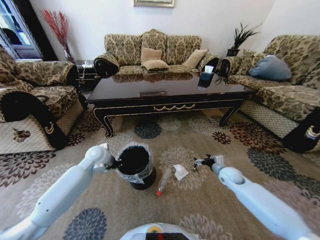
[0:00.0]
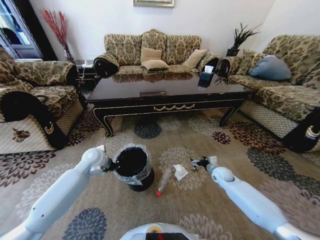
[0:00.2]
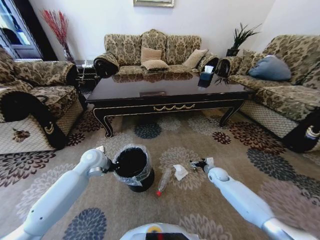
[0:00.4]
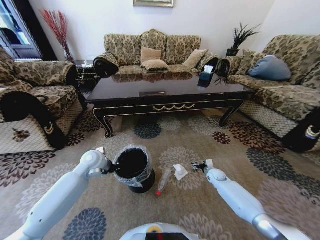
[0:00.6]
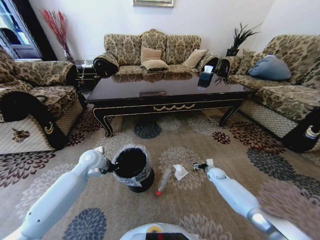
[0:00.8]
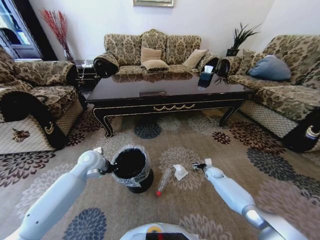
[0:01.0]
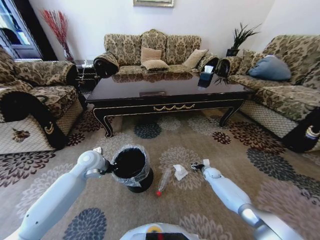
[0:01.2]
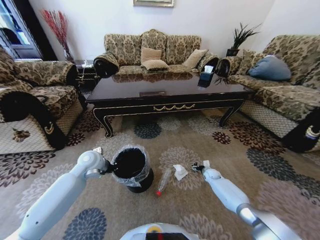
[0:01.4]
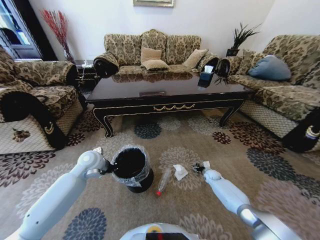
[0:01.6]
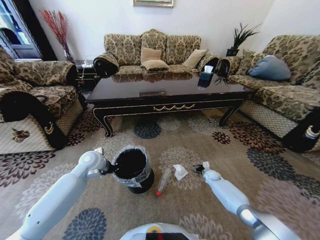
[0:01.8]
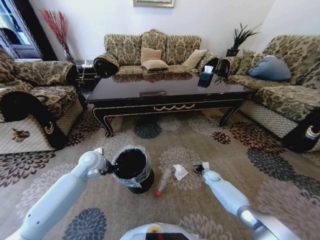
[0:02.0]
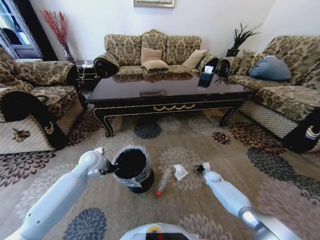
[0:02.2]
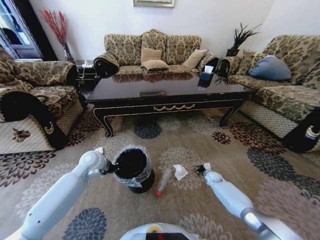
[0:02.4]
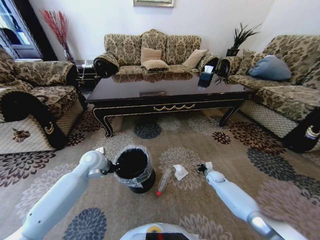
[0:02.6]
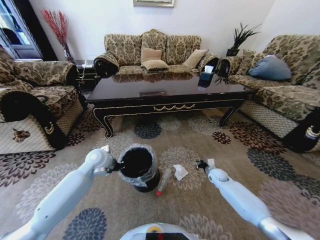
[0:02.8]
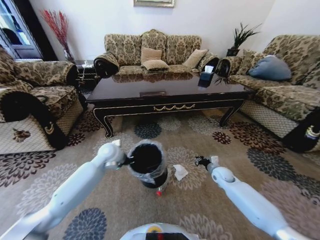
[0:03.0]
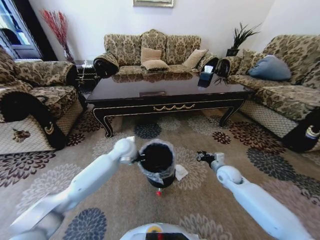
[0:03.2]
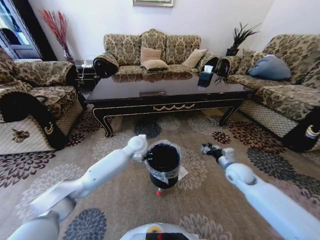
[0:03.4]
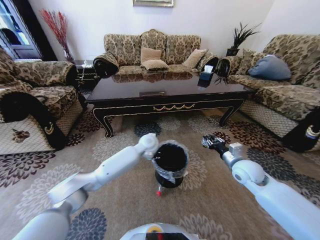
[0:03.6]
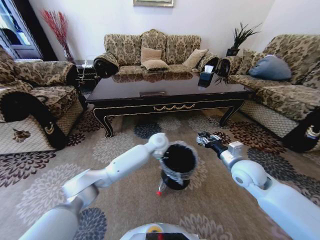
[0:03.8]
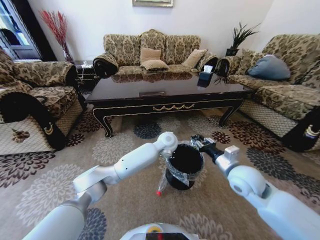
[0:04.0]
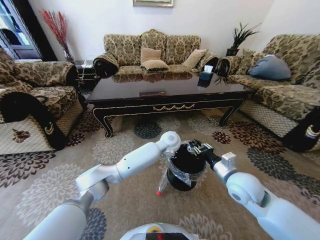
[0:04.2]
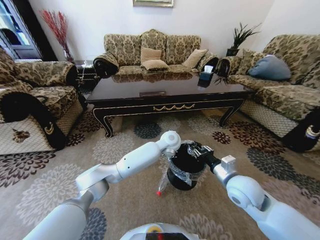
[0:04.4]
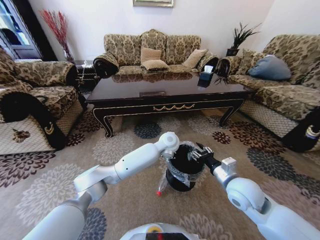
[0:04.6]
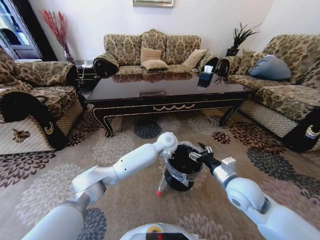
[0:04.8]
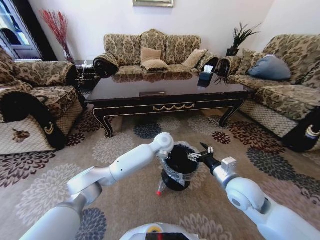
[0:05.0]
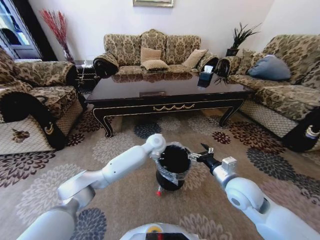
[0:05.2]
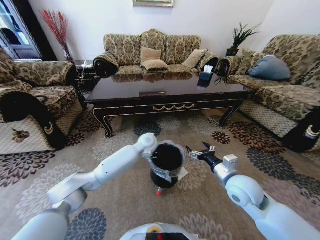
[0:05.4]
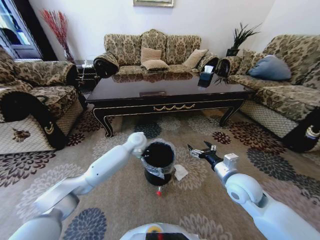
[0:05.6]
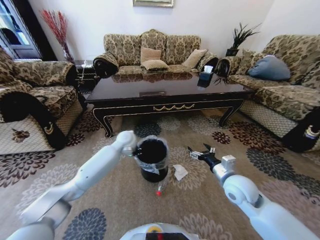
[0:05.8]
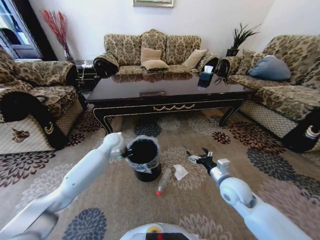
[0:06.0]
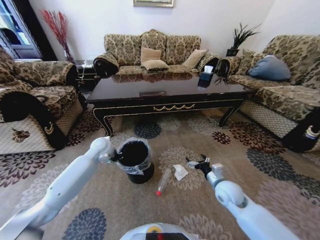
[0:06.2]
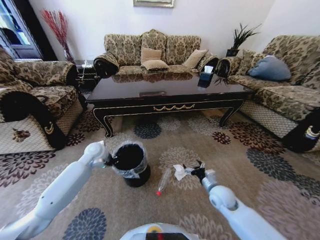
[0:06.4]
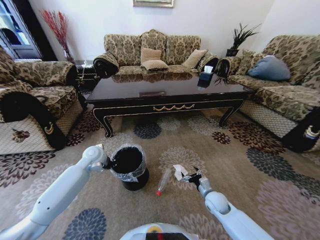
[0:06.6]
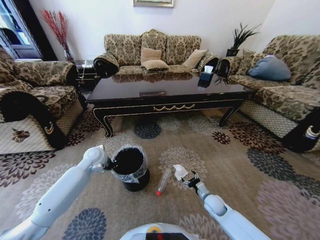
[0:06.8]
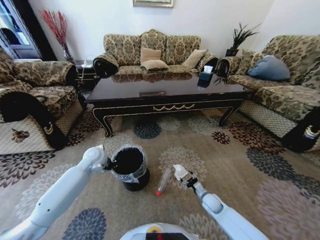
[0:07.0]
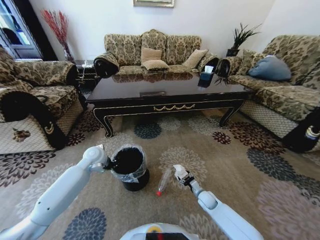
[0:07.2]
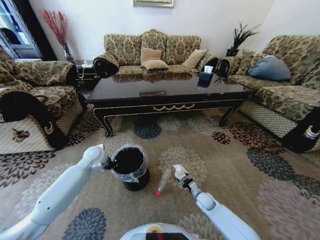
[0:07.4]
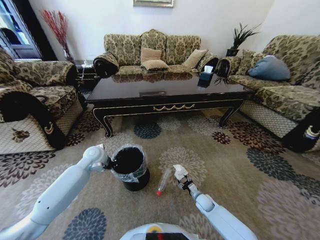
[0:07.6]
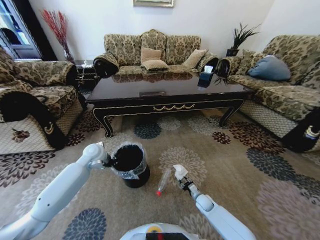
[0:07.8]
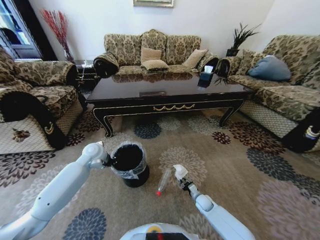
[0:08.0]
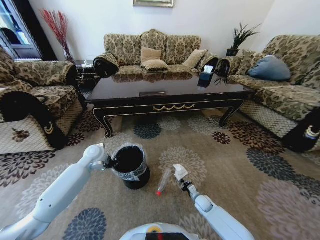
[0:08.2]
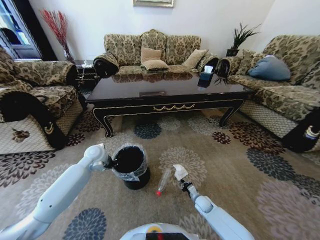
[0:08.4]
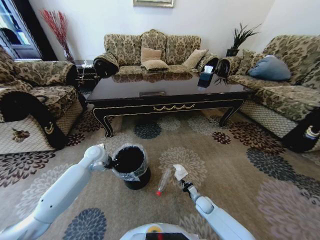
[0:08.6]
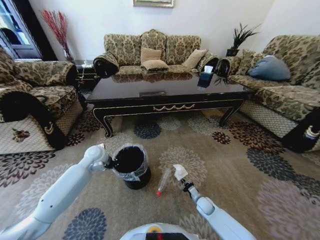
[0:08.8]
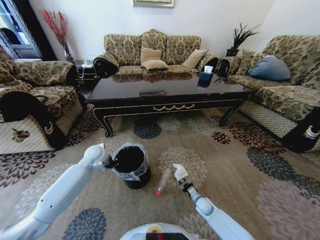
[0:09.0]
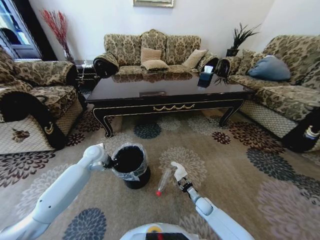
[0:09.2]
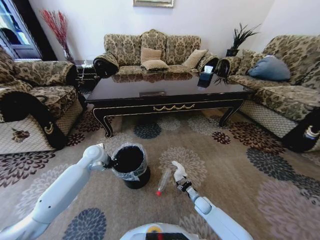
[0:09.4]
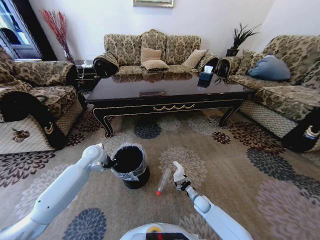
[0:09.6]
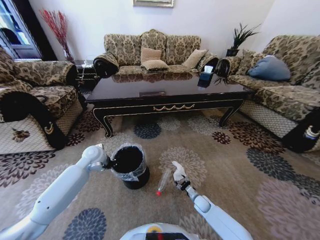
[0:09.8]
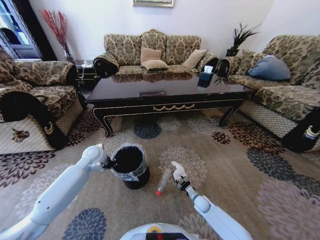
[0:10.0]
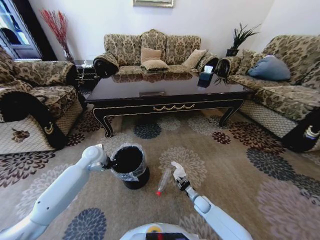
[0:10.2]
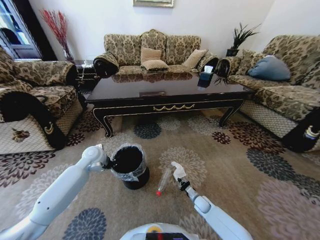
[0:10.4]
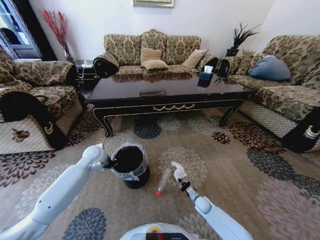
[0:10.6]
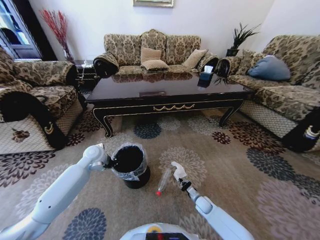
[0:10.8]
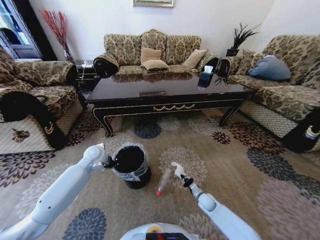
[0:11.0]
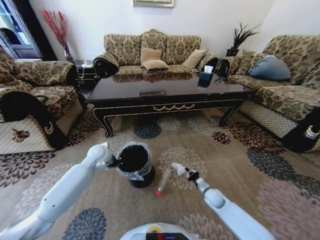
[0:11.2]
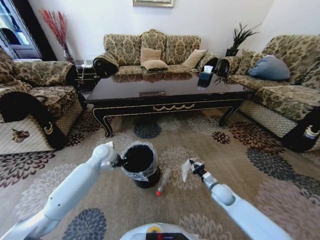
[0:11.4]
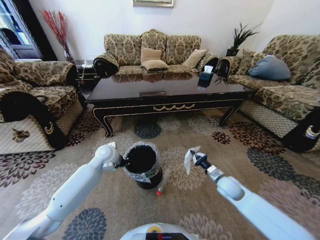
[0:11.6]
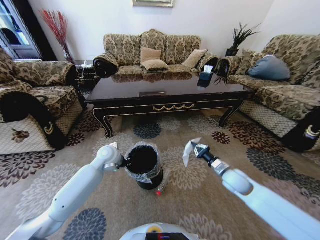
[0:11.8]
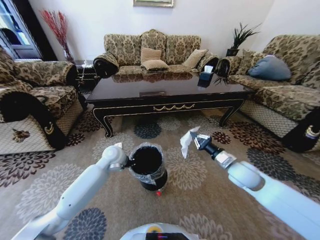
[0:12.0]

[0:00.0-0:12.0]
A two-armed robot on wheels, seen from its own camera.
Task of the whole recording: Move to the front of the table and pick up the trash from the floor, then place it into the trash bin.
0:00.0 to 0:01.6: The right gripper travels downward and forward by roughly 15 cm.
0:01.6 to 0:03.0: The right gripper moves upward, roughly 10 cm, and closes its fingers; the left gripper goes approximately 10 cm to the right.
0:03.0 to 0:04.4: The right gripper moves upward, backward and to the left, some 25 cm; the left gripper shifts some 25 cm to the right.
0:04.4 to 0:06.0: The left gripper travels to the left by roughly 25 cm. Meanwhile the right gripper moves downward, approximately 5 cm, and opens its fingers.
0:06.0 to 0:07.6: The right gripper heads downward, covering about 25 cm, and closes its fingers. Meanwhile the left gripper moves to the left and backward, roughly 10 cm.
0:07.6 to 0:09.0: The right gripper closes its fingers.
0:09.0 to 0:10.4: The right gripper opens and closes again.
0:10.4 to 0:12.0: The left gripper shifts approximately 10 cm to the right. The right gripper moves upward, roughly 35 cm.

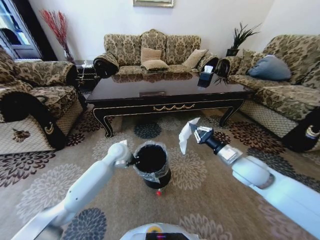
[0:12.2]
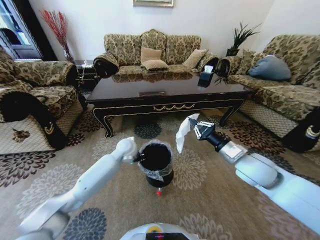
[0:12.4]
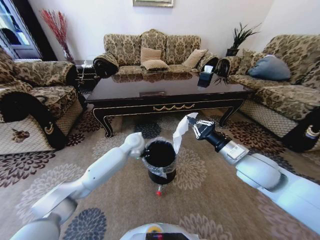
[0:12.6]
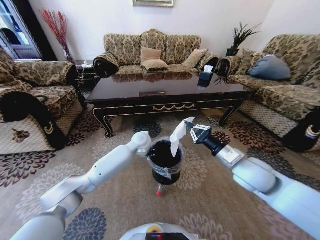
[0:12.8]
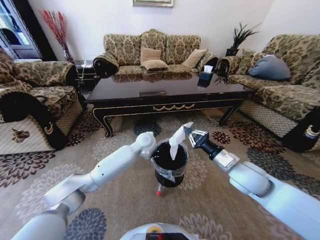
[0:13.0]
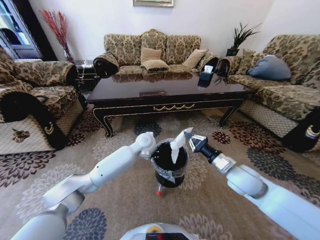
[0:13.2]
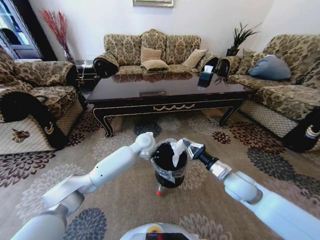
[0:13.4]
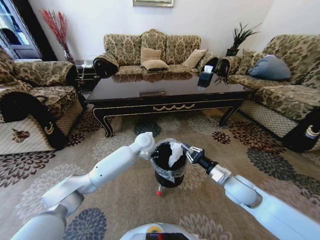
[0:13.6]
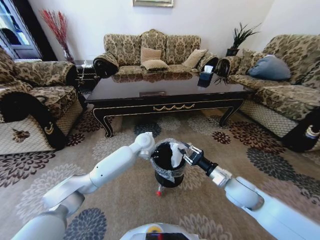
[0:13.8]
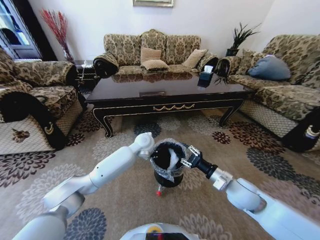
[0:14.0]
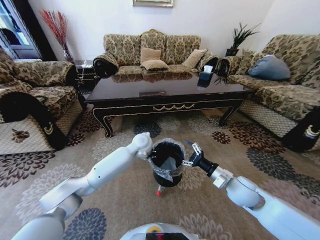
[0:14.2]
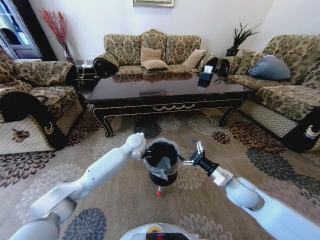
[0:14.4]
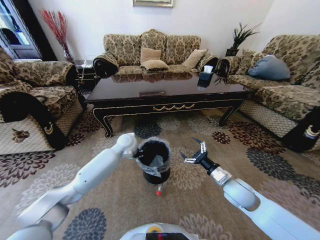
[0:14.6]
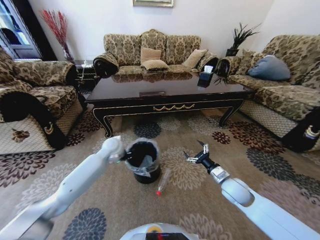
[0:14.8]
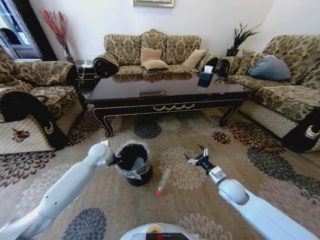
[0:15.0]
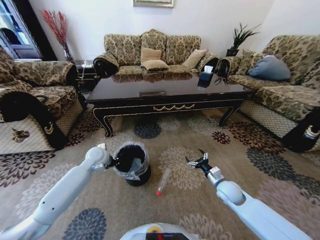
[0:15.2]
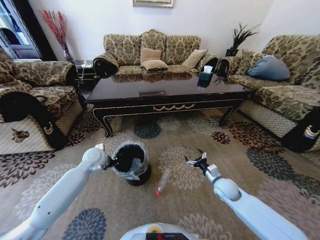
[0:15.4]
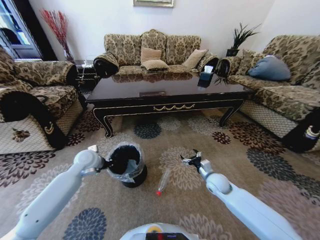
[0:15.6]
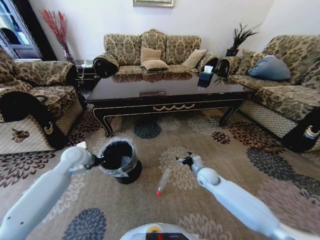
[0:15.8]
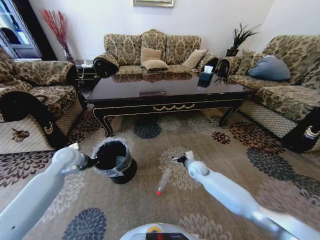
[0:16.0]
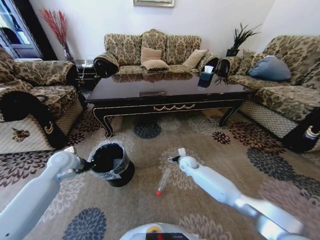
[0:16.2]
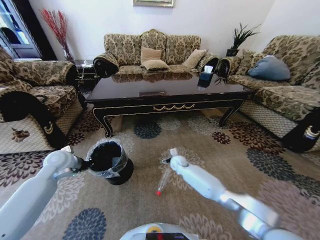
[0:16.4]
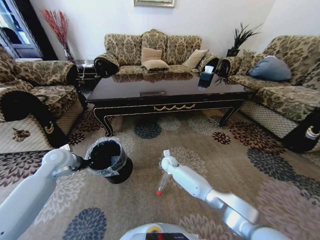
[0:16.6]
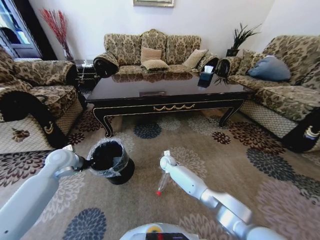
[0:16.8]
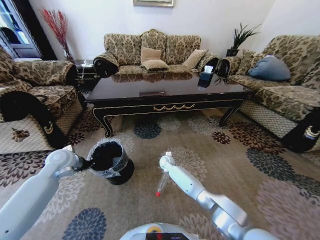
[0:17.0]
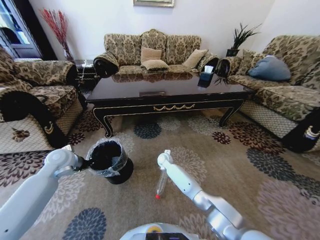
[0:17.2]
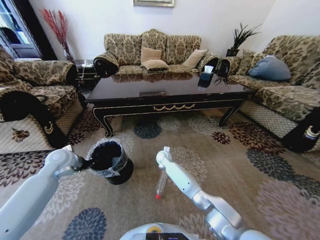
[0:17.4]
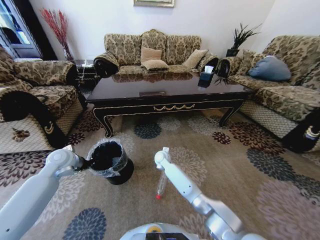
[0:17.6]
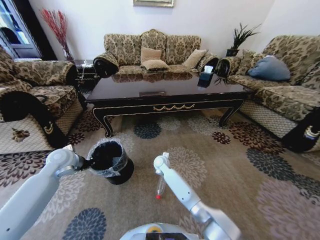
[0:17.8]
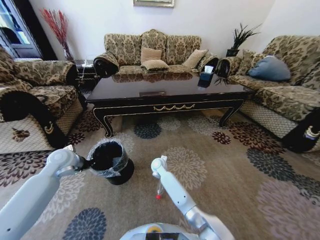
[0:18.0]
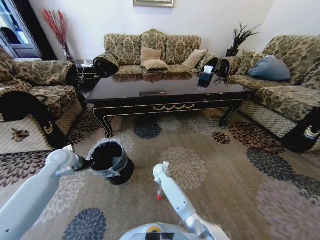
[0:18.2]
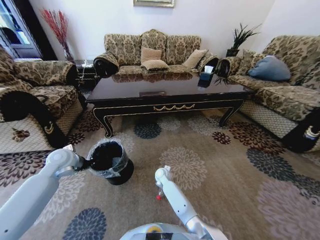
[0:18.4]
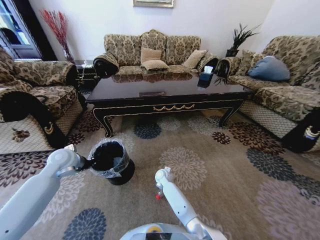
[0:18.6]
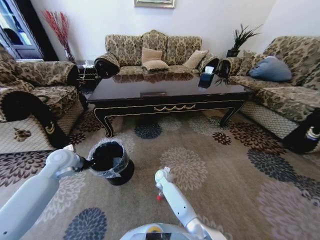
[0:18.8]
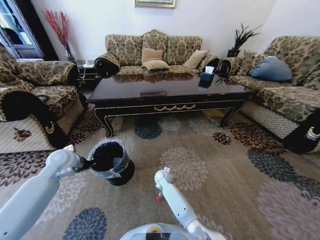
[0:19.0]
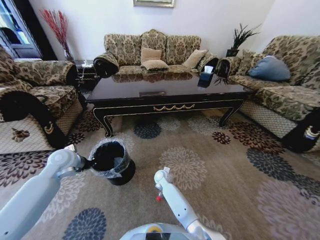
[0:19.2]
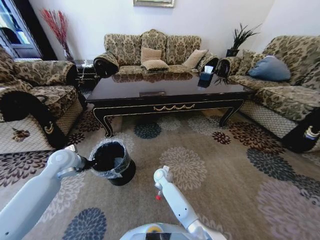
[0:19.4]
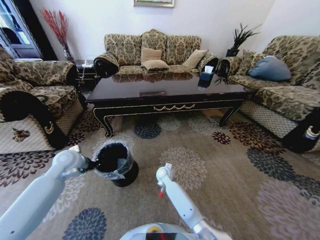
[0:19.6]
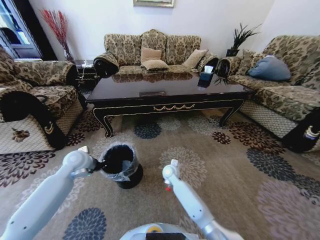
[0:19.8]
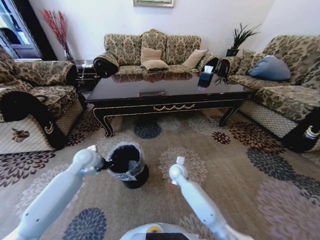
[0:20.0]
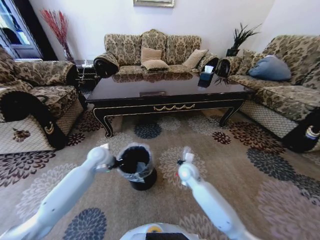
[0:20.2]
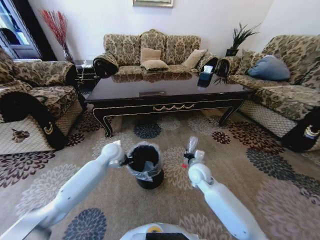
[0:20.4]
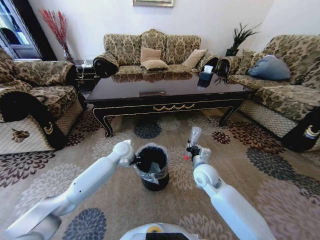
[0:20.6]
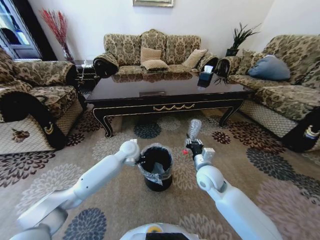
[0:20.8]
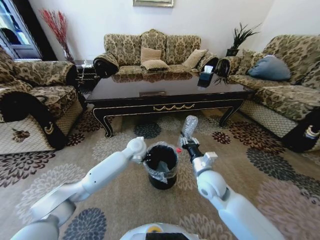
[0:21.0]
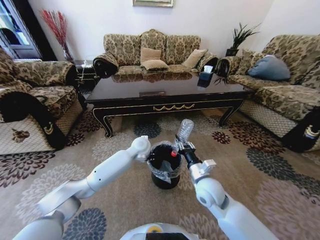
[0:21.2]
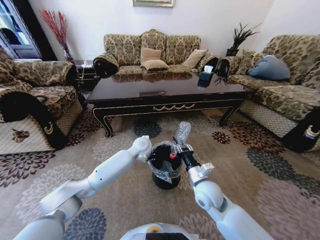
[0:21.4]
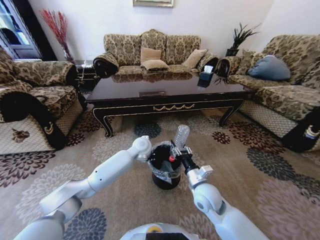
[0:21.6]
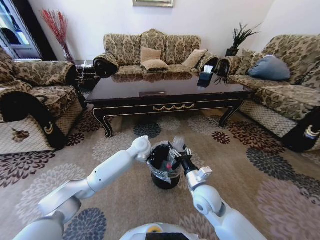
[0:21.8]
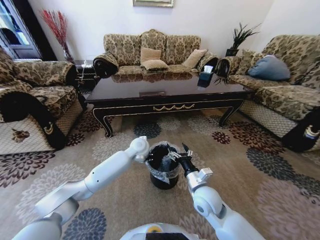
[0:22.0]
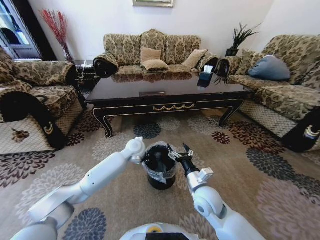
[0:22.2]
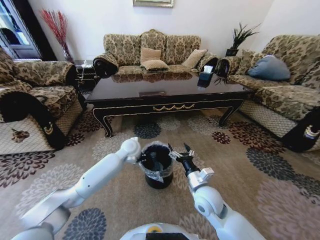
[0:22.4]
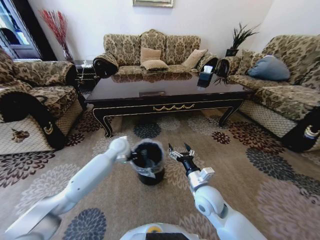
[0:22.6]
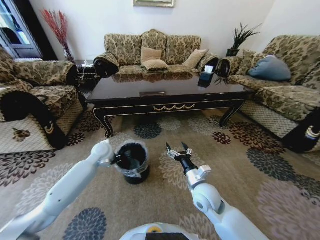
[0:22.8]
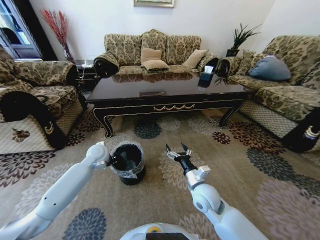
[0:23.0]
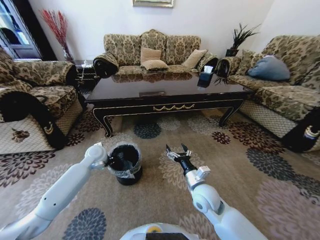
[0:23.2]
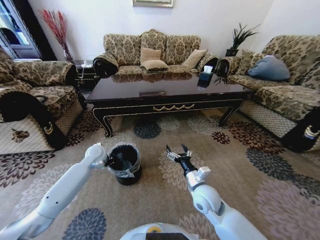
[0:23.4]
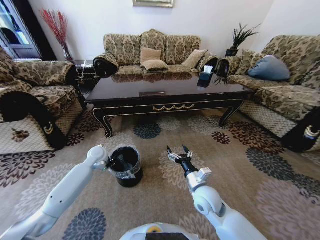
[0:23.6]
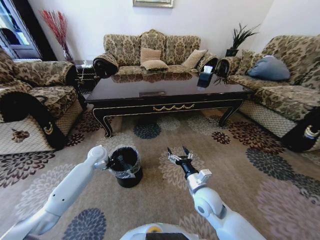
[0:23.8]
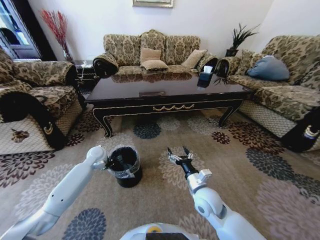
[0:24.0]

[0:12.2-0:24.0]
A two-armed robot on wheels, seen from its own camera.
Task of the whole recording: Move to the front of the table and pick up the trash from the floor, then place it into the trash bin.
0:12.2 to 0:13.6: The right gripper goes approximately 10 cm downward. Meanwhile the left gripper shifts approximately 10 cm to the right.
0:13.6 to 0:15.2: The right gripper shifts approximately 10 cm downward, and opens up, while the left gripper moves to the left, approximately 20 cm.
0:15.2 to 0:16.6: The left gripper travels to the left by roughly 10 cm, while the right gripper heads to the left and forward, covering about 30 cm.
0:16.6 to 0:18.2: The right gripper heads to the left, covering approximately 5 cm.
0:18.2 to 0:19.6: The right gripper closes up.
0:19.6 to 0:21.0: The right gripper heads upward, to the right and backward, covering approximately 25 cm, while the left gripper goes about 25 cm to the right.
0:21.0 to 0:22.6: The right gripper ends up some 5 cm from where it was, and opens up. The left gripper goes roughly 10 cm to the left.
0:22.6 to 0:24.0: The left gripper goes roughly 15 cm to the left and downward.
